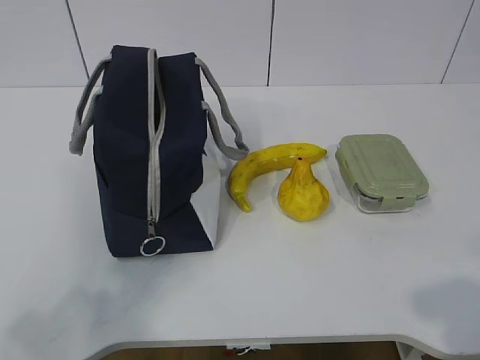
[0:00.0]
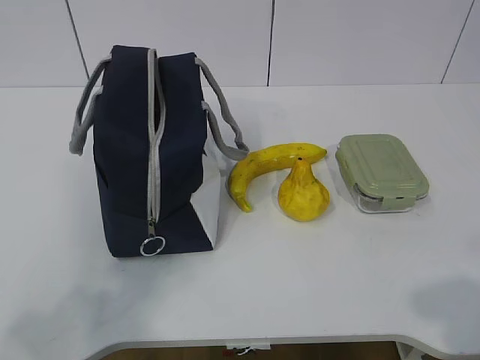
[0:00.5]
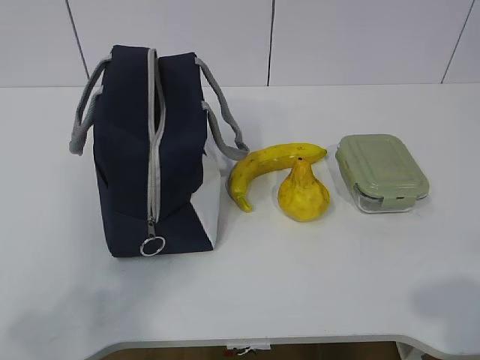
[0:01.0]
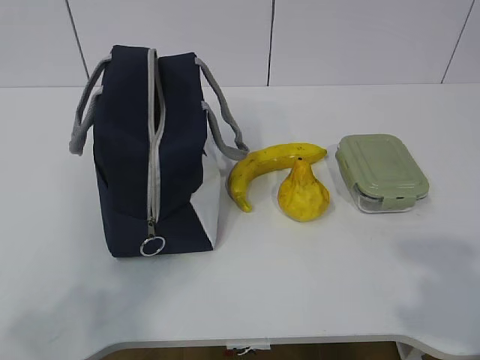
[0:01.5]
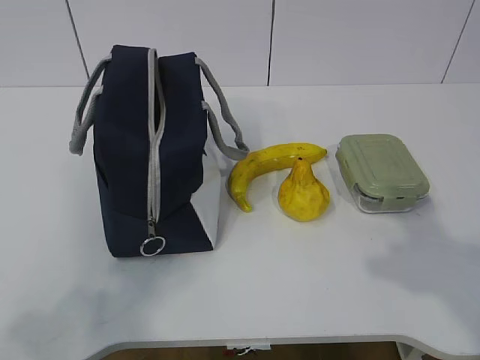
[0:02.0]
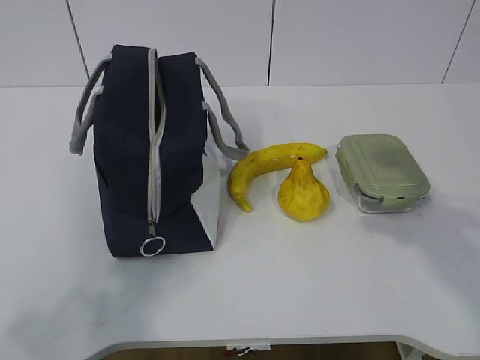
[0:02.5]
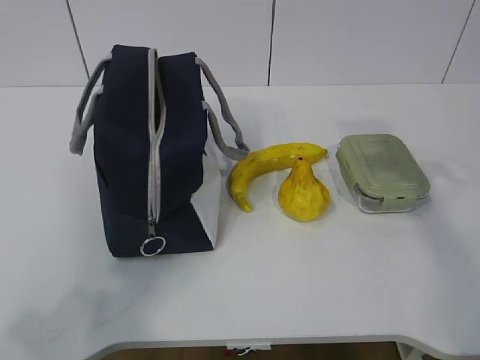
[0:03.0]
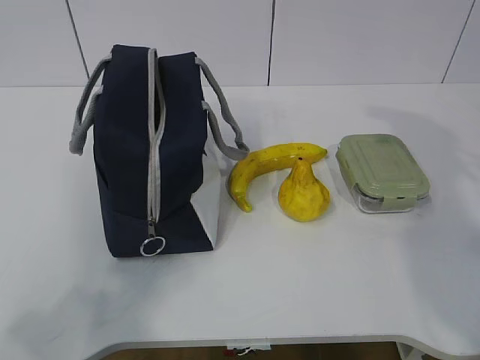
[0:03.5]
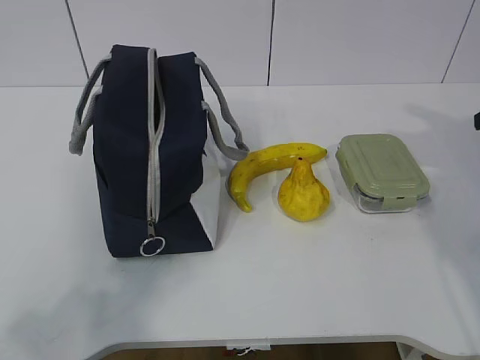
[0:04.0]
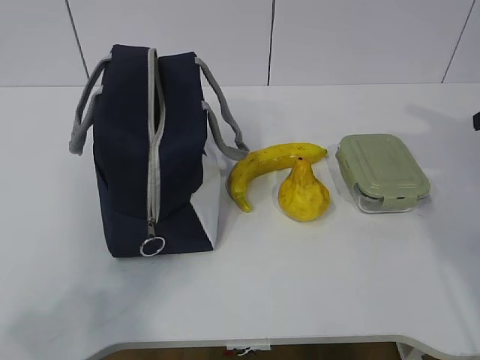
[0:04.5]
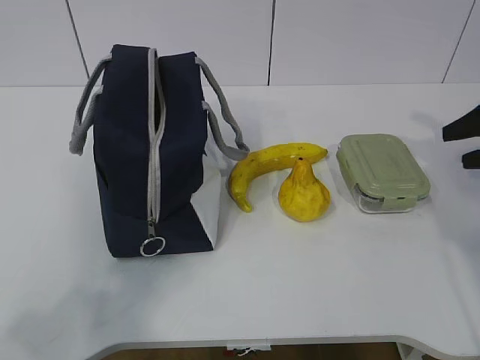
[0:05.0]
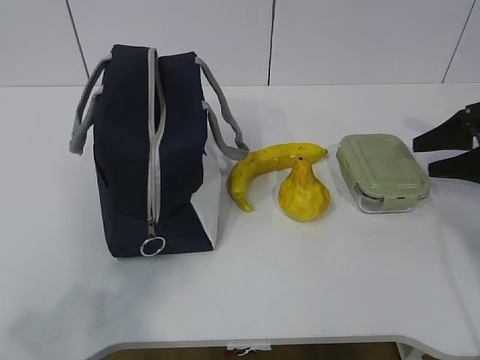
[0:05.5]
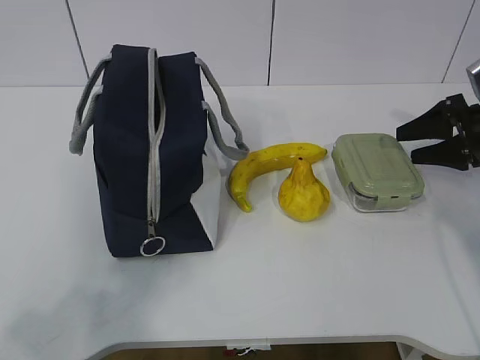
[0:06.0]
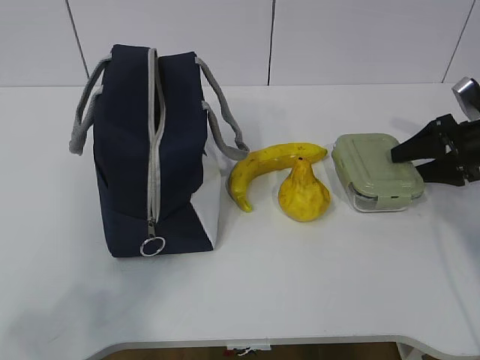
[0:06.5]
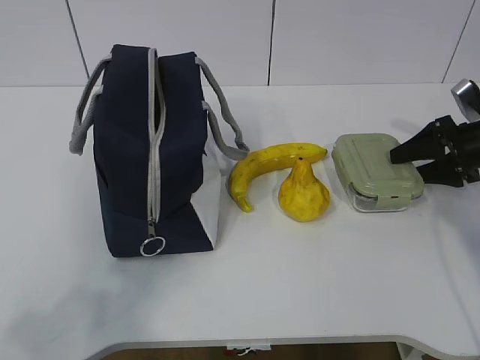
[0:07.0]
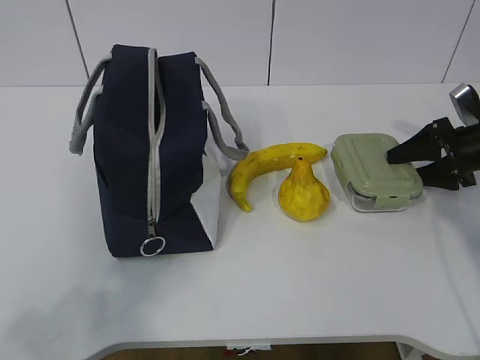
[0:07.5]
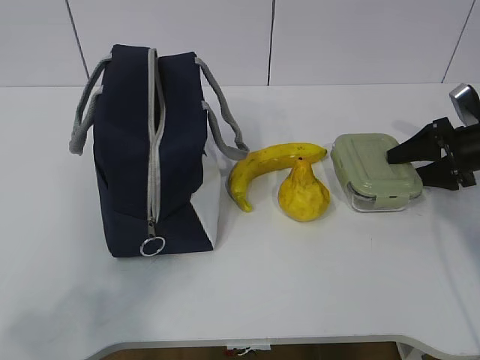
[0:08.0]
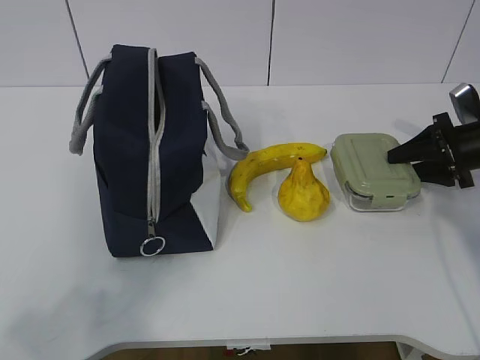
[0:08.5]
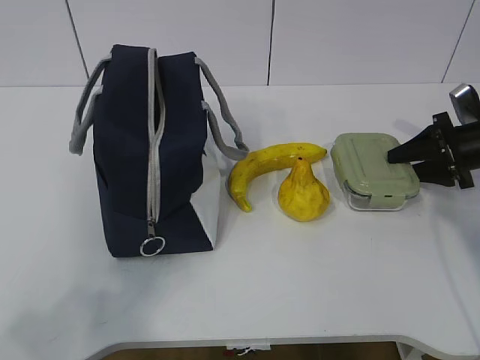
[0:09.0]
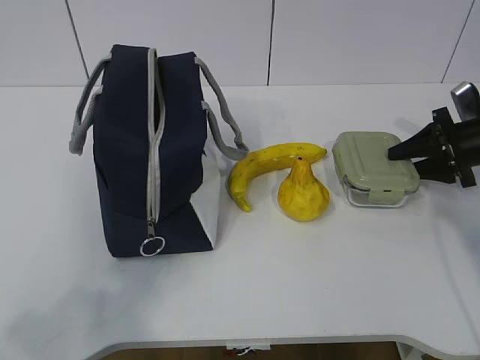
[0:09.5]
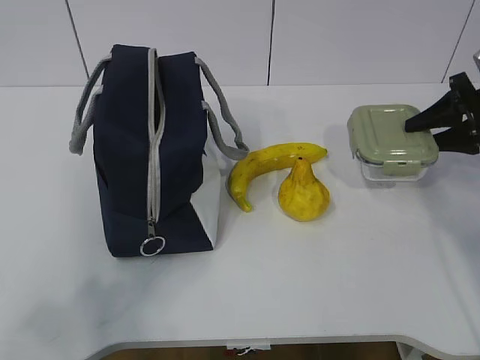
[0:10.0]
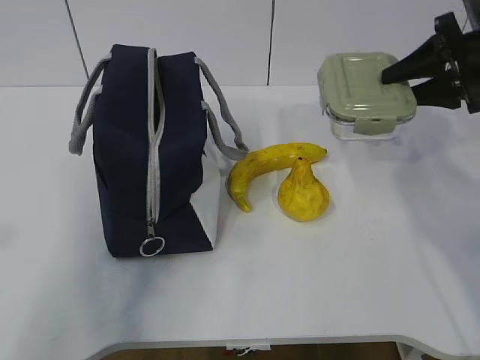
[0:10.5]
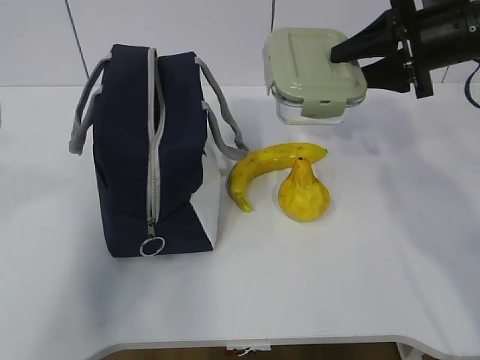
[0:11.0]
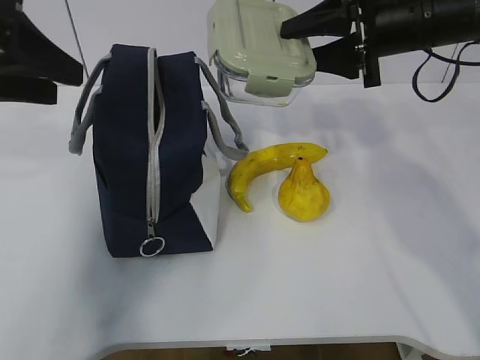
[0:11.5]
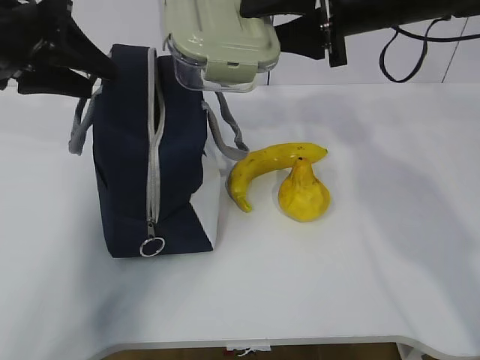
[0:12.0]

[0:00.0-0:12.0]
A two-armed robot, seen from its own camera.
Step, 0:00.0 to 0:07.5: Grab the lunch box with your right hand.
Step, 0:08.0 to 0:10.5: Grab the lunch bag with your left hand.
0:04.0 to 0:06.0: The right gripper is displaced downward and forward by about 15 cm, and opens.
0:06.0 to 0:08.0: The grippers move only a little.
0:08.0 to 0:10.0: The right gripper is displaced upward by approximately 5 cm, and closes up.
0:10.0 to 0:12.0: The right gripper goes some 25 cm to the left and upward, while the left gripper shifts approximately 35 cm forward.

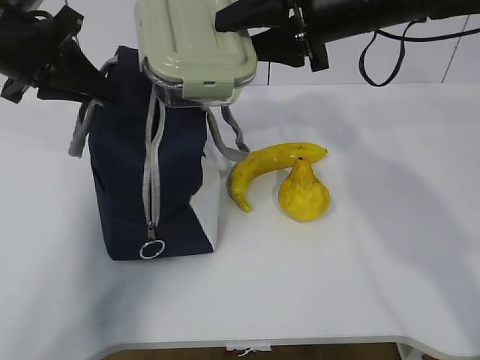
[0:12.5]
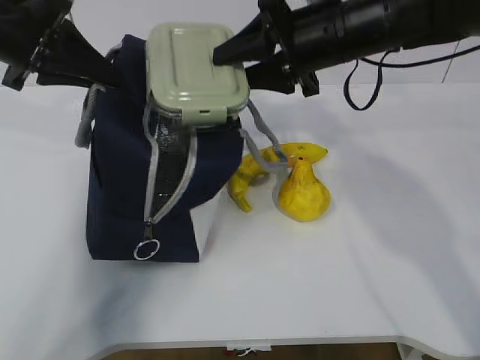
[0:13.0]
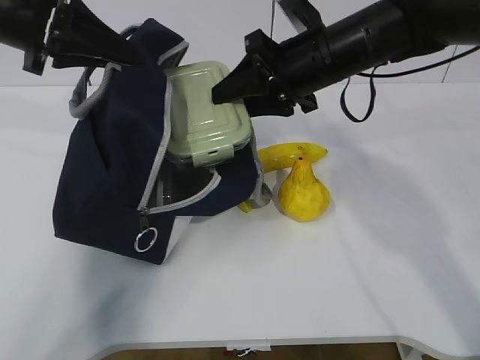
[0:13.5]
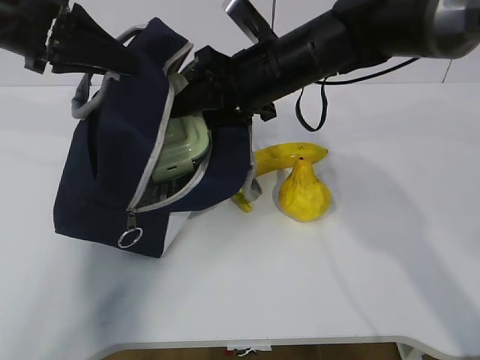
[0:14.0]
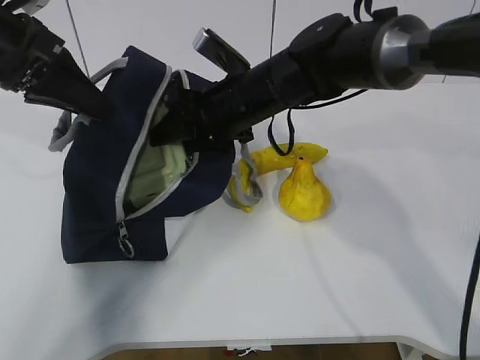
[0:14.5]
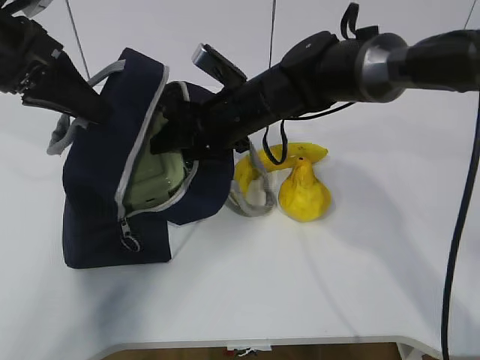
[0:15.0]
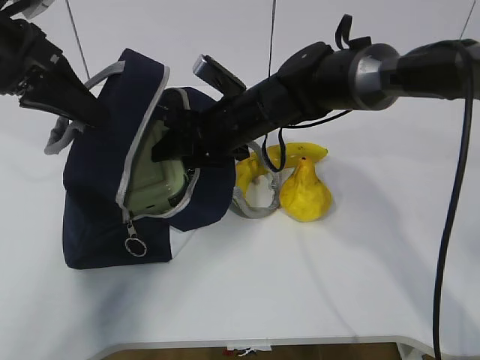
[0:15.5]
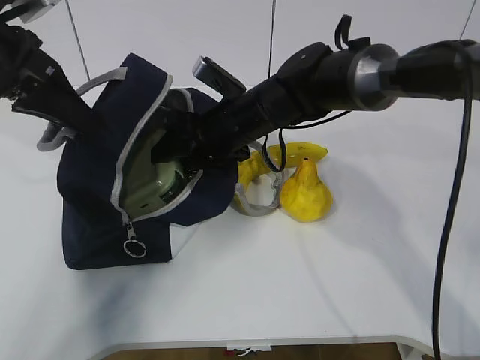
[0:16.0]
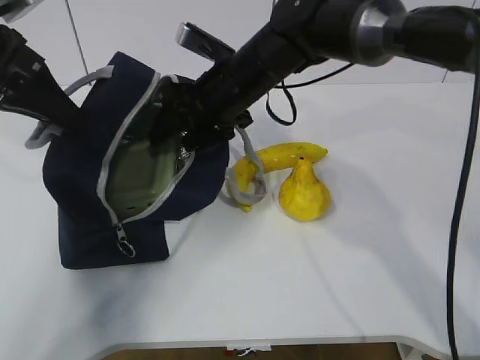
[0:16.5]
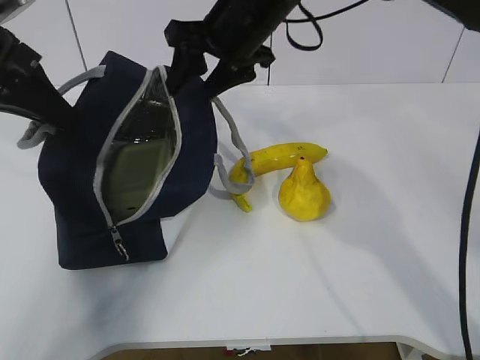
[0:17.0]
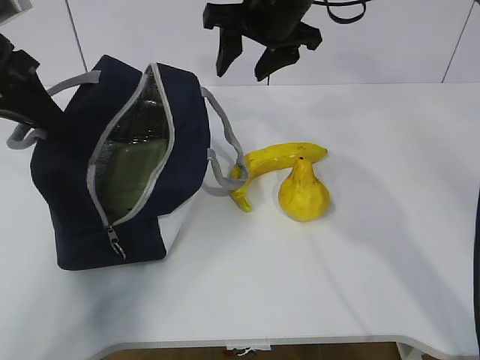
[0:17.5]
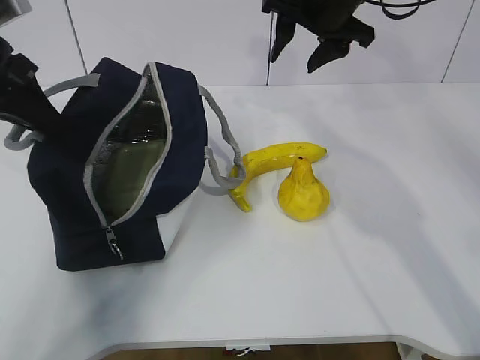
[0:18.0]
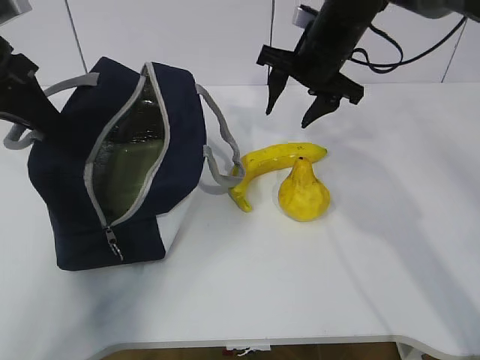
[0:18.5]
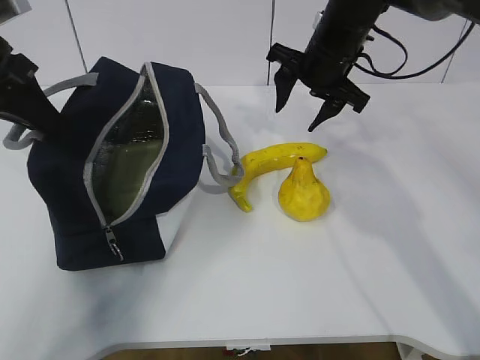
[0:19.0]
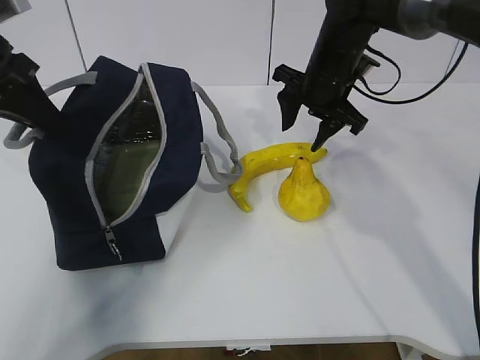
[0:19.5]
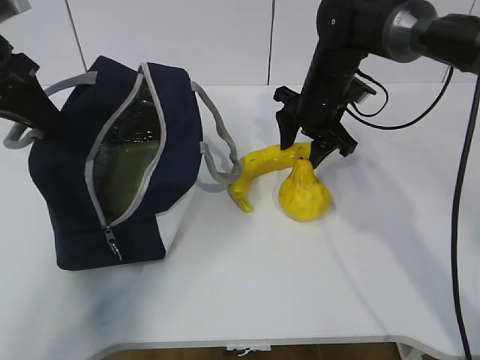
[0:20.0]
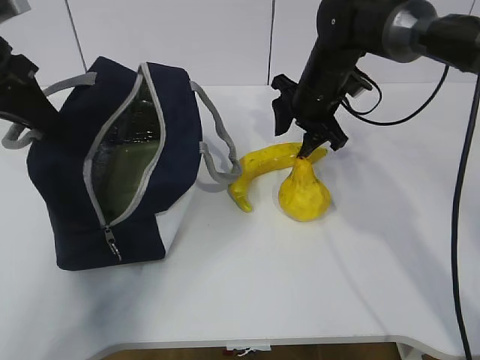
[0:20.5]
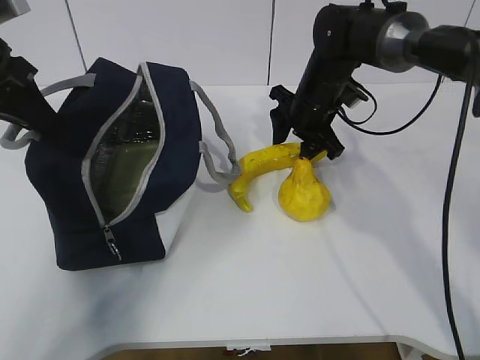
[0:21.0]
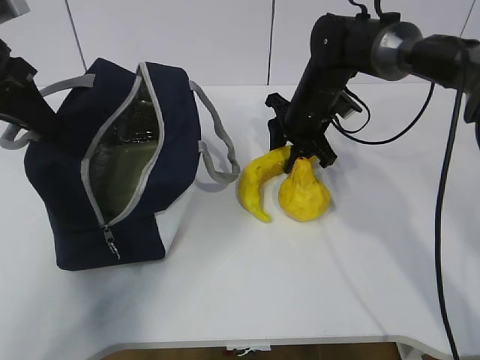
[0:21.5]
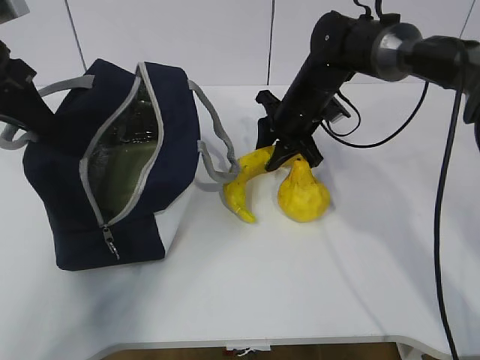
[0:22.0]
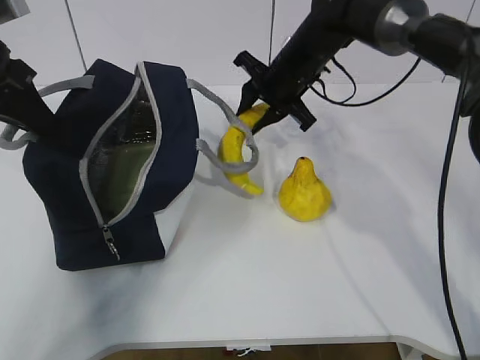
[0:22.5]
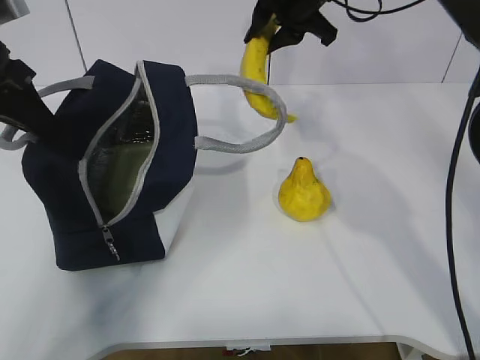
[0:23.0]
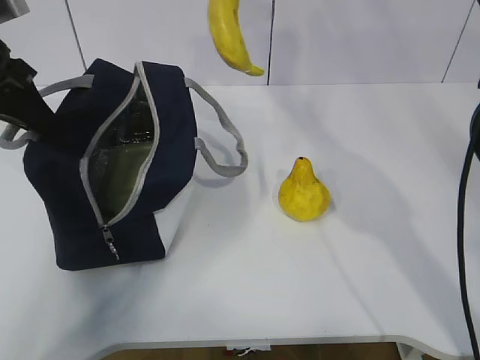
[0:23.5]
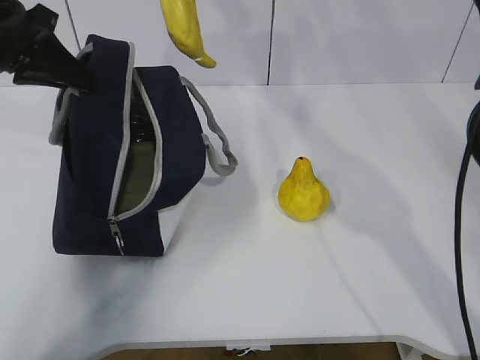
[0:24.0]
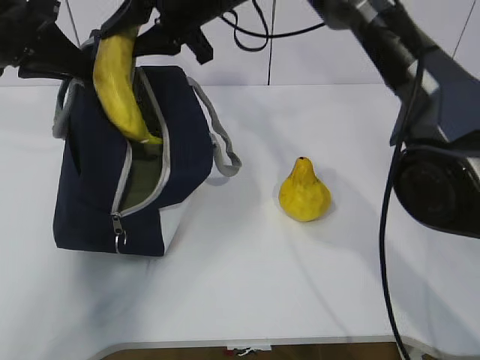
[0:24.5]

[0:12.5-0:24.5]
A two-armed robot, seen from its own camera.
Step, 0:13.5 to 0:17.5: Grab the banana with your right hand.
Step, 0:18.5 to 0:21.0: Place it into the bag with your right hand.
0:12.5 to 0:14.5: The right gripper travels downward and to the left by some 15 cm.
0:16.5 to 0:18.5: The right gripper heads to the right, covering about 10 cm.
0:18.5 to 0:20.5: The right gripper travels downward by roughly 5 cm.
0:20.5 to 0:22.5: The right gripper closes its fingers.
0:22.5 to 0:24.5: The right gripper shifts approximately 15 cm upward and to the left.

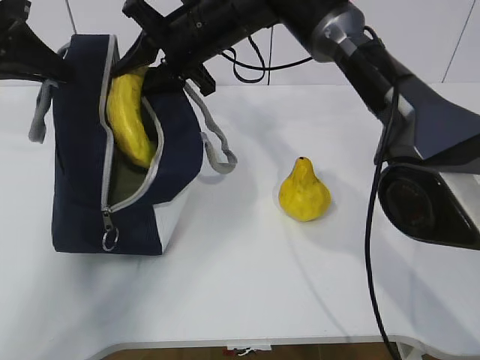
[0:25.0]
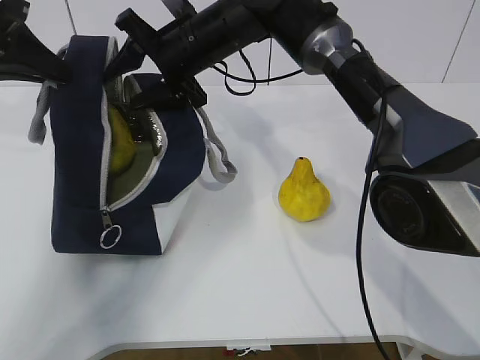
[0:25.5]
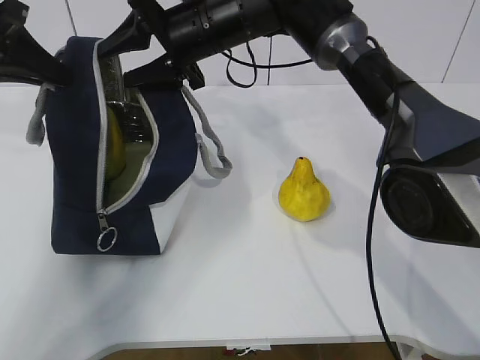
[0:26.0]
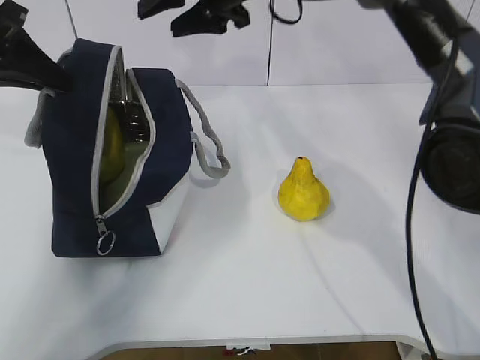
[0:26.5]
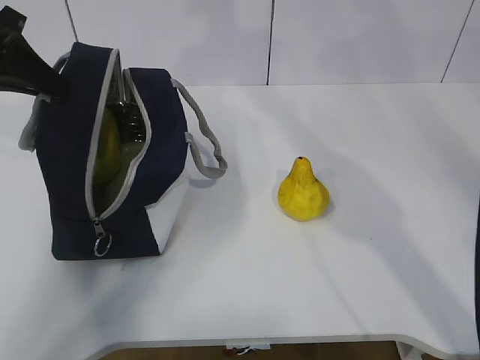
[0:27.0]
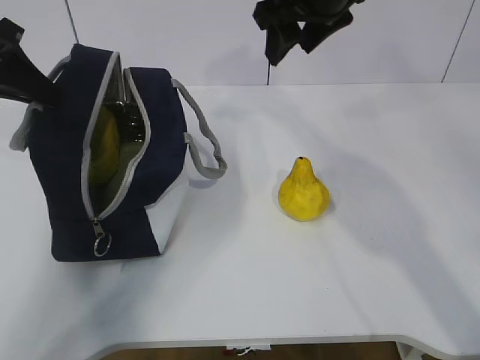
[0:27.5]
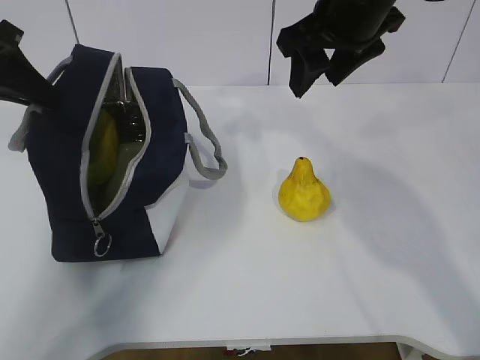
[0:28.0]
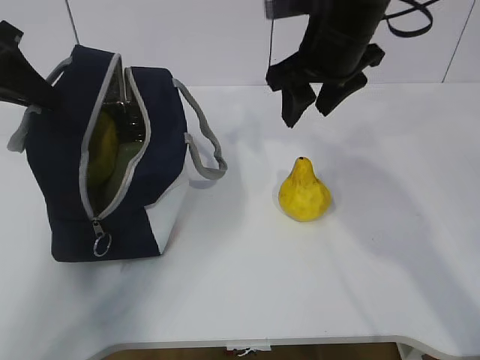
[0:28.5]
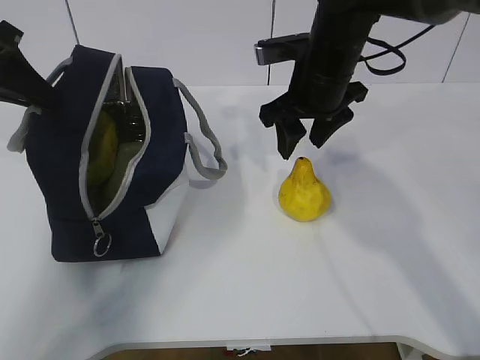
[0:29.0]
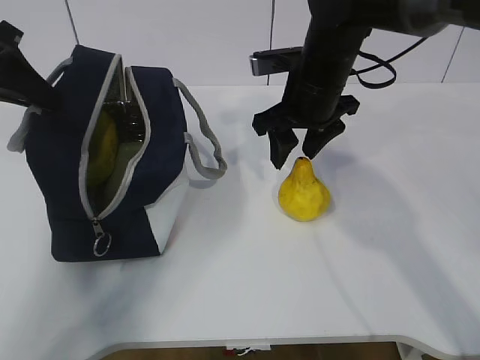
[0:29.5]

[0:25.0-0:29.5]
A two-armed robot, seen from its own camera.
0:25.0 to 0:27.0: The right gripper is displaced upward and to the right by approximately 15 cm, and opens up.
0:27.0 to 0:29.5: The right gripper shifts approximately 15 cm downward.
